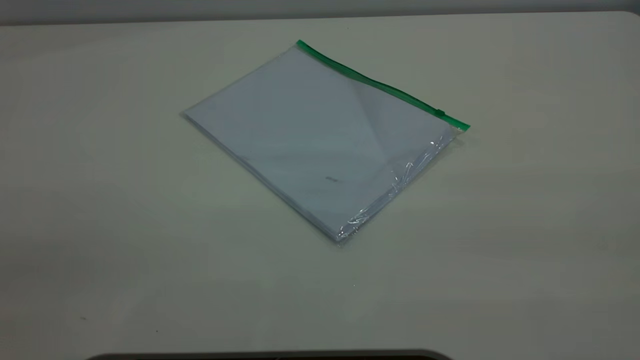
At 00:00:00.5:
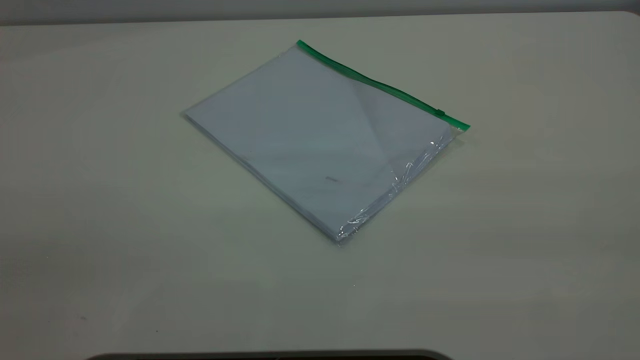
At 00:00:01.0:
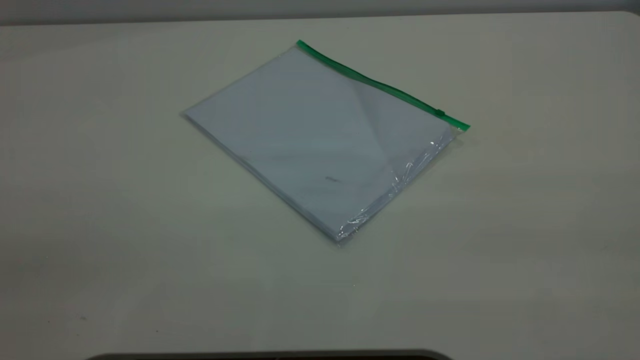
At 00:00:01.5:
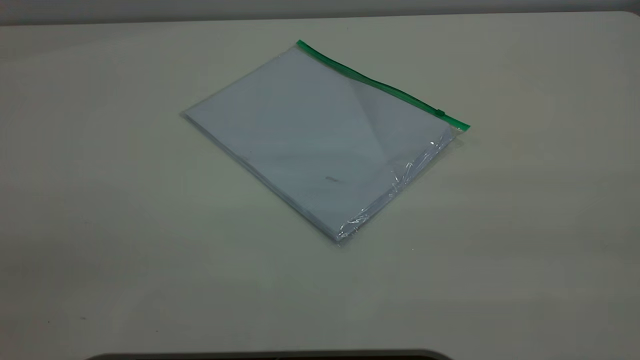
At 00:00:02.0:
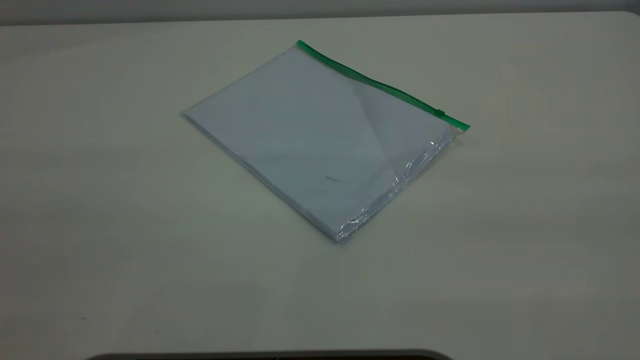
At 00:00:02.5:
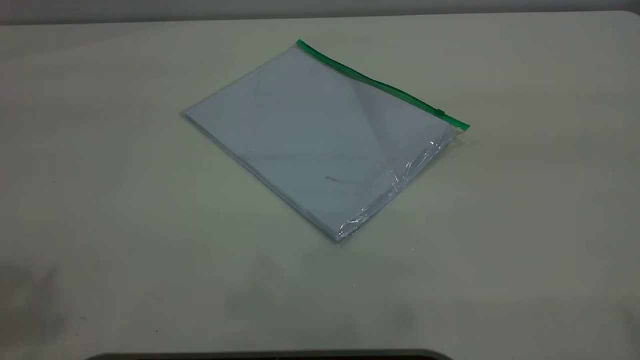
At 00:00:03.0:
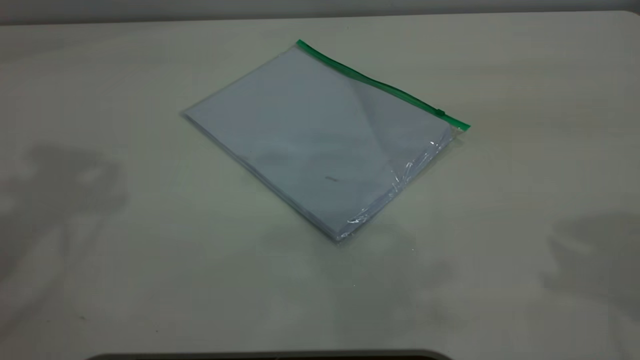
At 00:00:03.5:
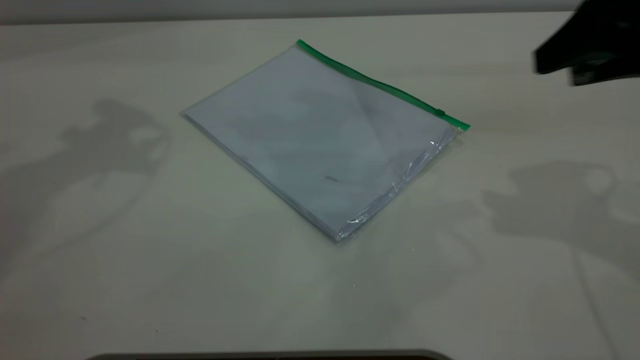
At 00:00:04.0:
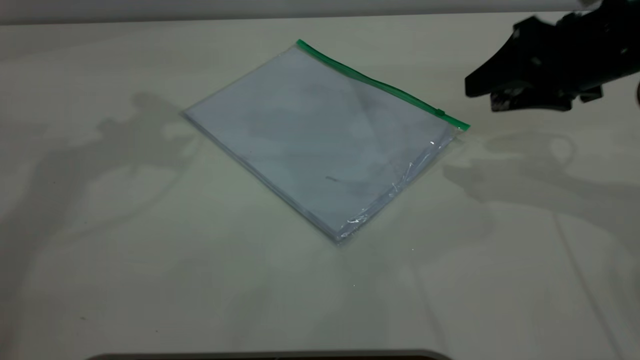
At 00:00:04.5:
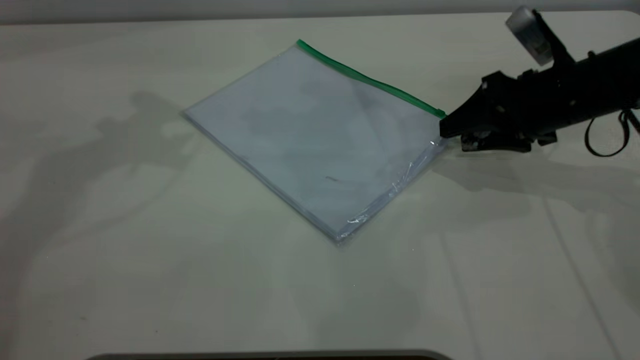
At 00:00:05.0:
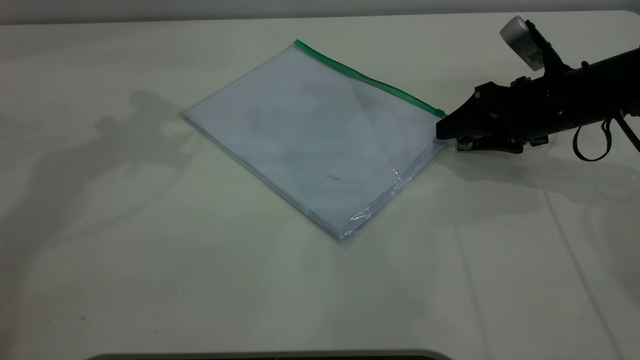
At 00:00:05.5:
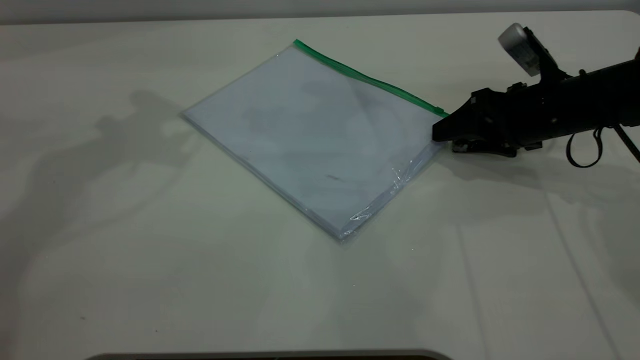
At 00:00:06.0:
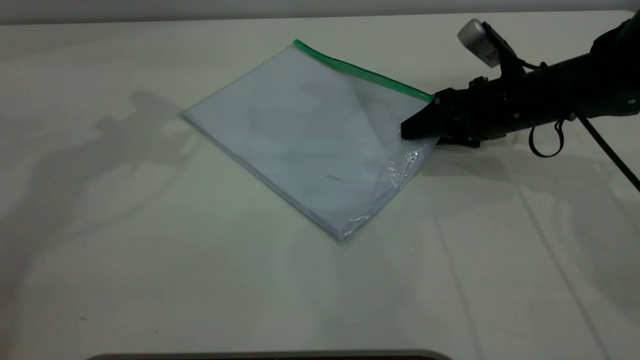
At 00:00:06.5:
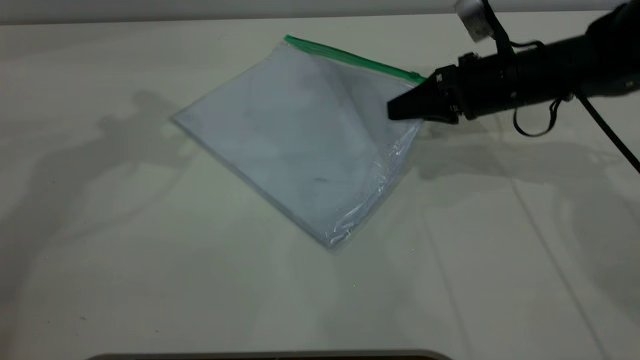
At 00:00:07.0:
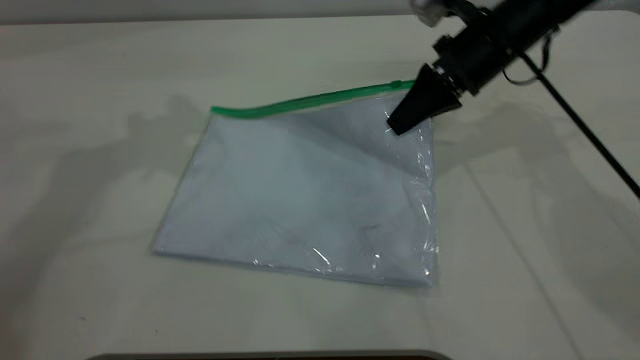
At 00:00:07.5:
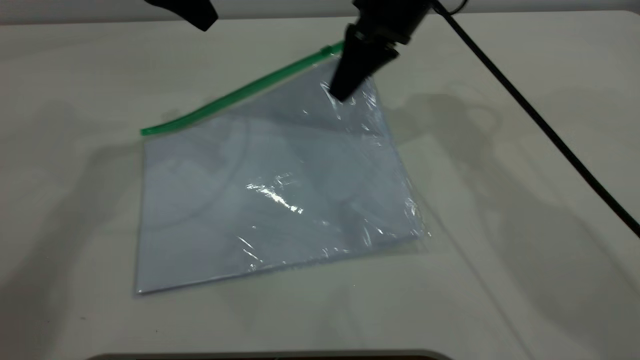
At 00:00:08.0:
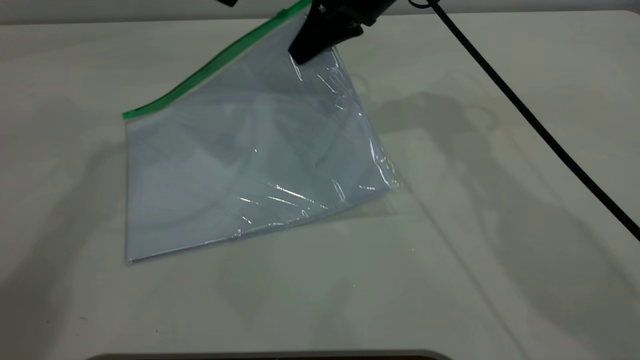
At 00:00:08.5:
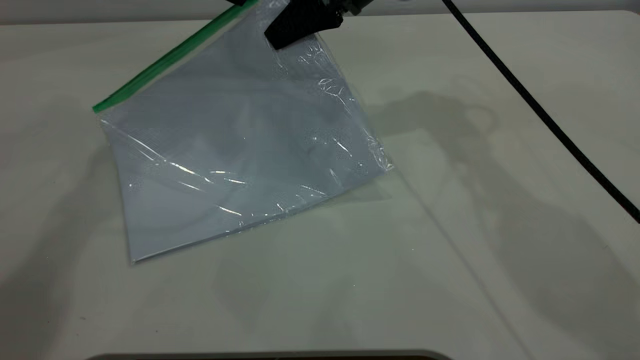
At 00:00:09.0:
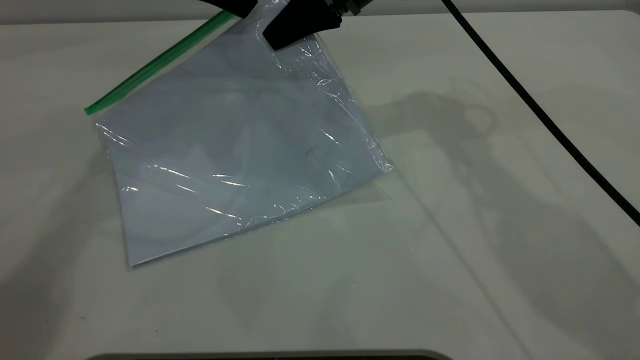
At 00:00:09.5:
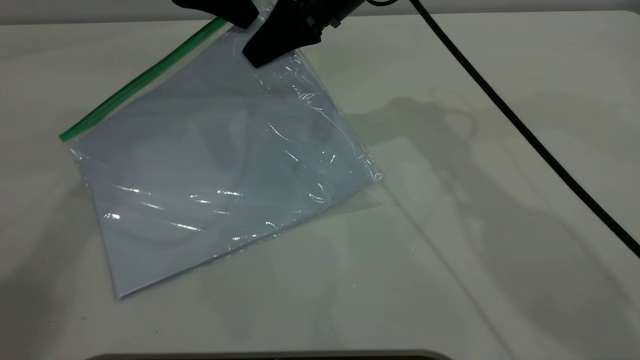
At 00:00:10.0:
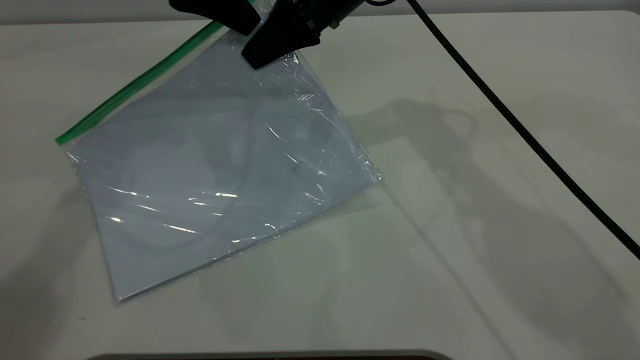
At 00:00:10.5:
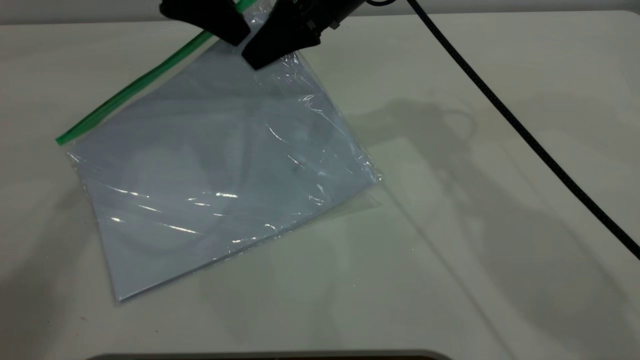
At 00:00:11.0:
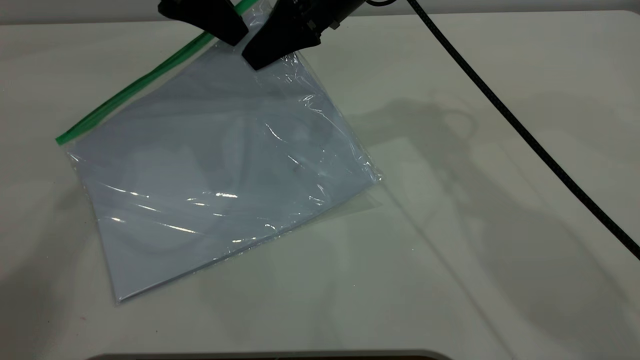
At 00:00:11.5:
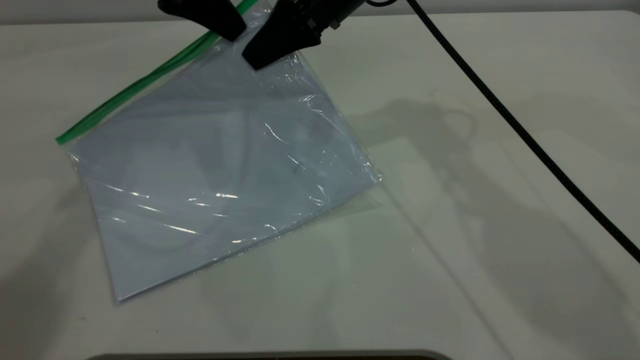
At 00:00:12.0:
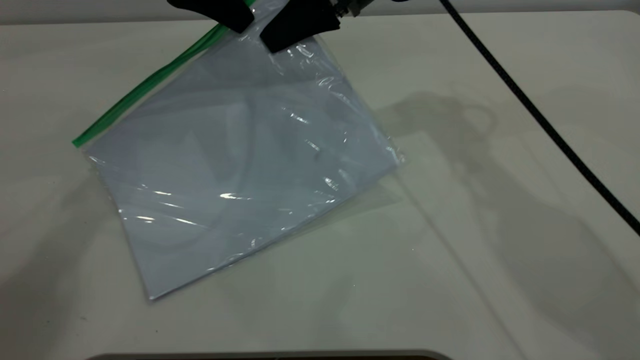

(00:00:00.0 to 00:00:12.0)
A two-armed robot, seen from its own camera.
Step, 00:00:00.0 - 00:00:06.0: Pick up the transparent plastic bag with the right gripper.
00:00:02.0 - 00:00:04.0: The right gripper goes about 40 cm forward and downward.
00:00:04.0 - 00:00:06.0: The right gripper goes about 10 cm downward and forward.
00:00:06.0 - 00:00:08.0: The left gripper shifts approximately 5 cm to the right; the right gripper goes roughly 20 cm to the left, upward and forward, and closes its fingers.
00:00:10.0 - 00:00:12.0: The left gripper closes.

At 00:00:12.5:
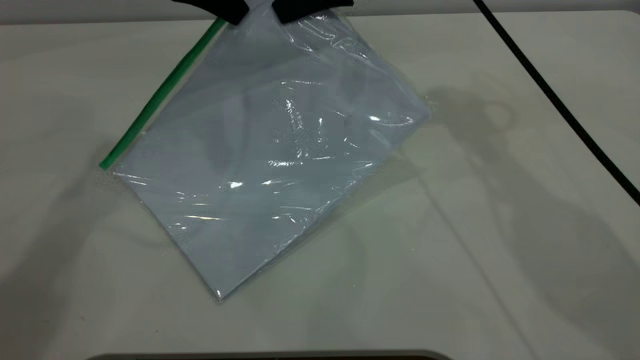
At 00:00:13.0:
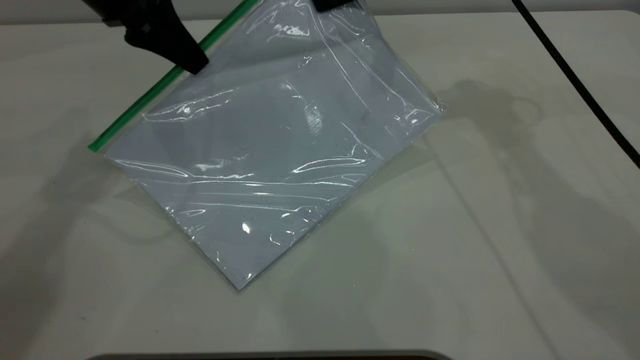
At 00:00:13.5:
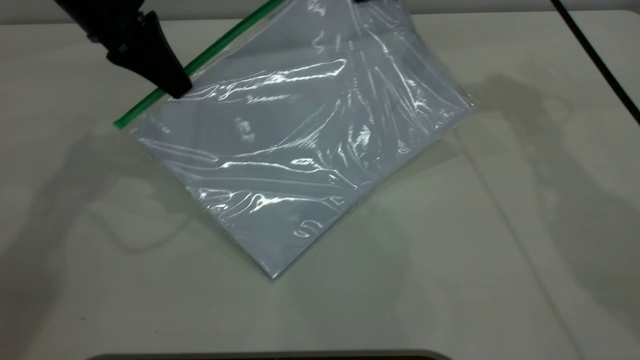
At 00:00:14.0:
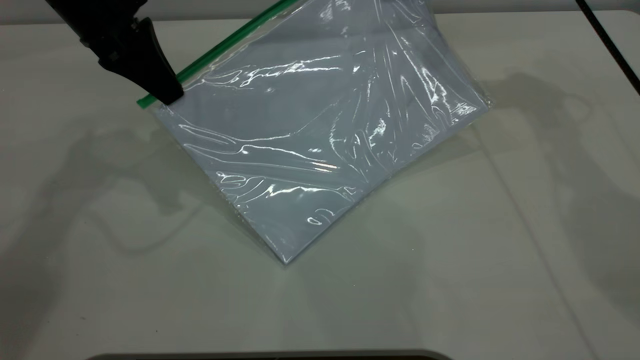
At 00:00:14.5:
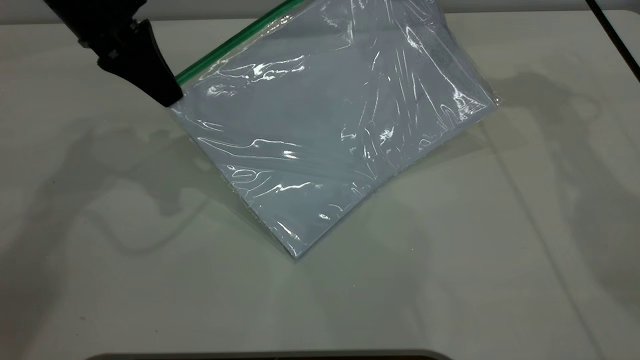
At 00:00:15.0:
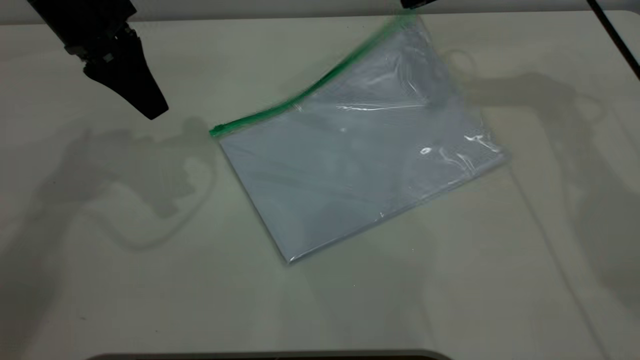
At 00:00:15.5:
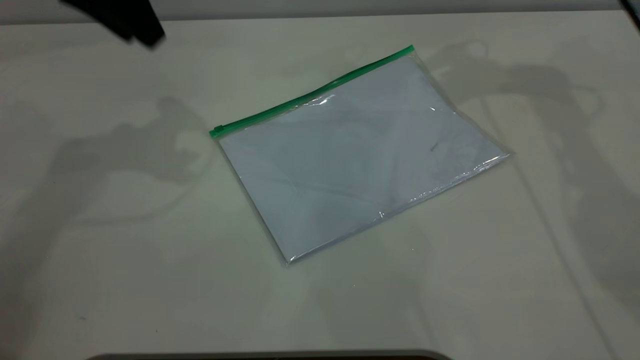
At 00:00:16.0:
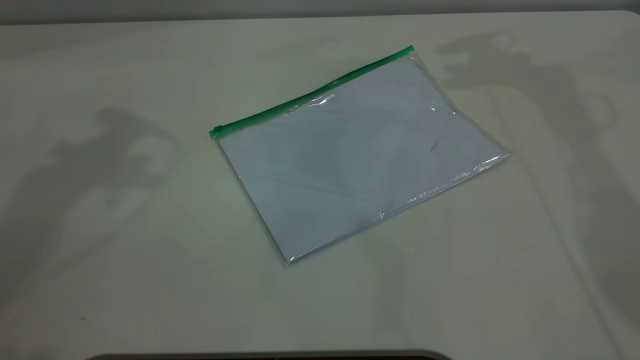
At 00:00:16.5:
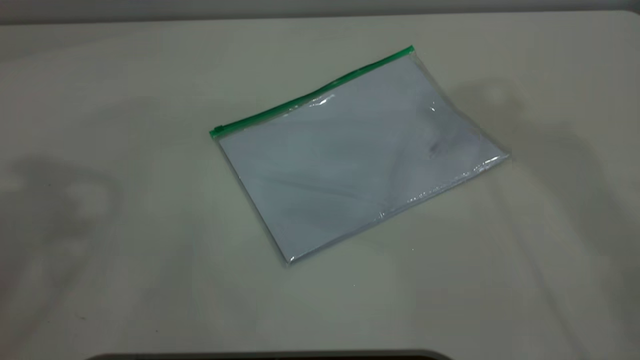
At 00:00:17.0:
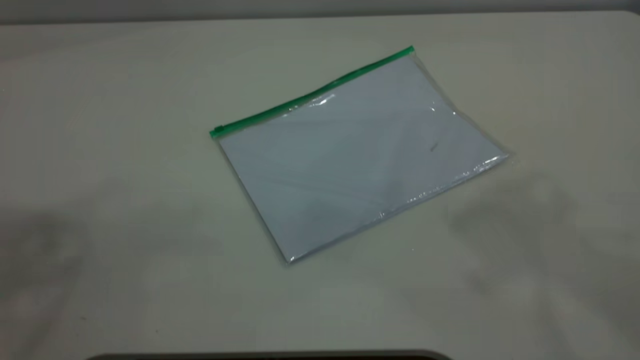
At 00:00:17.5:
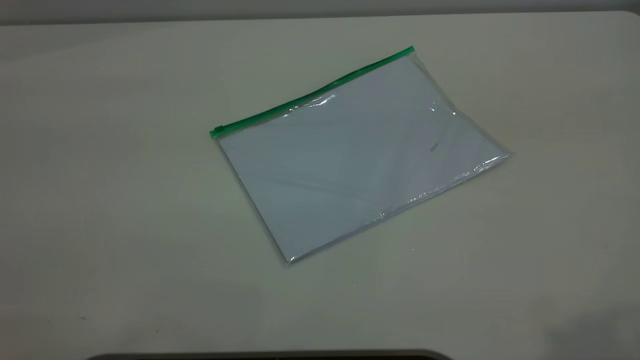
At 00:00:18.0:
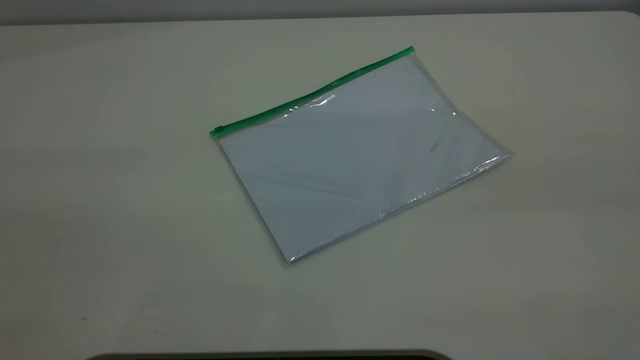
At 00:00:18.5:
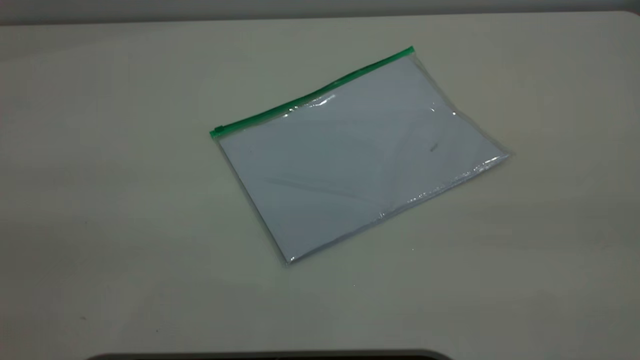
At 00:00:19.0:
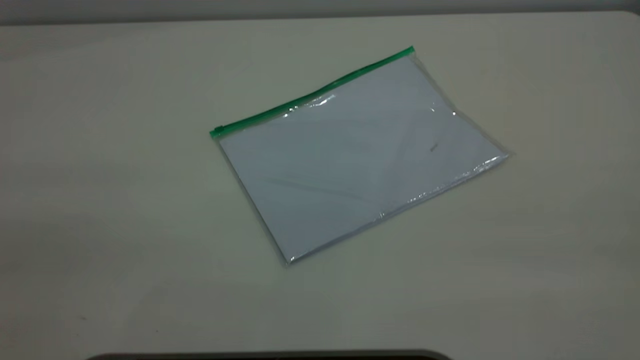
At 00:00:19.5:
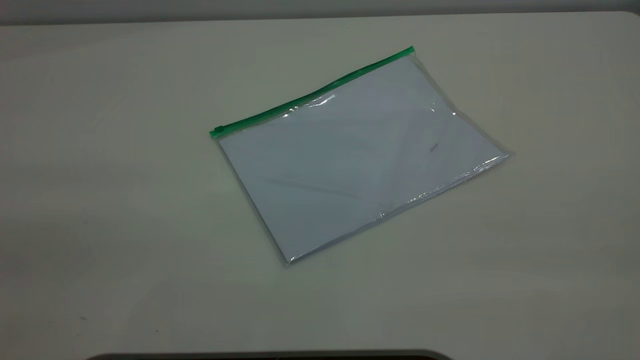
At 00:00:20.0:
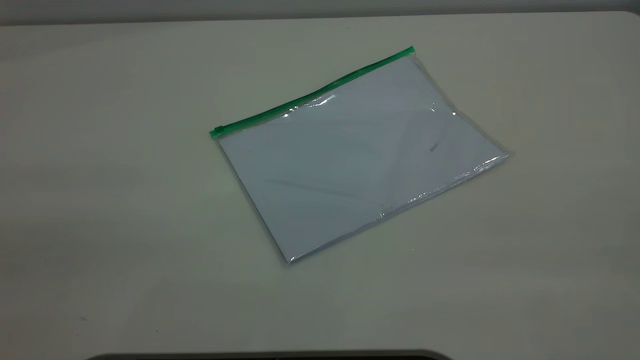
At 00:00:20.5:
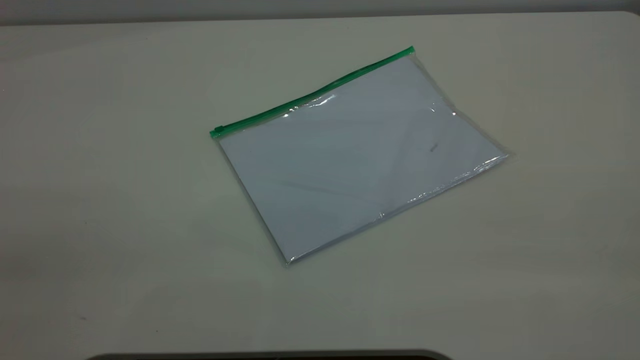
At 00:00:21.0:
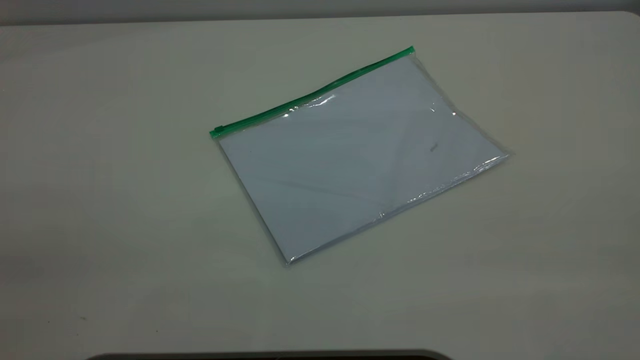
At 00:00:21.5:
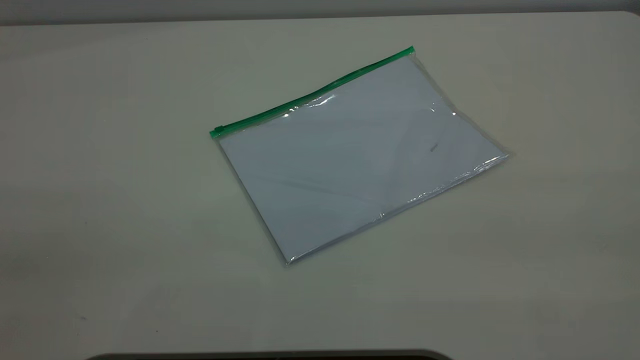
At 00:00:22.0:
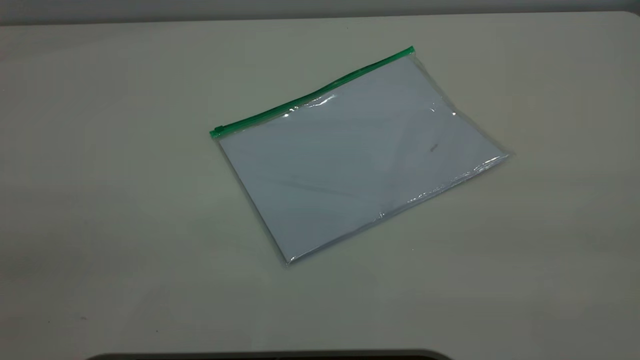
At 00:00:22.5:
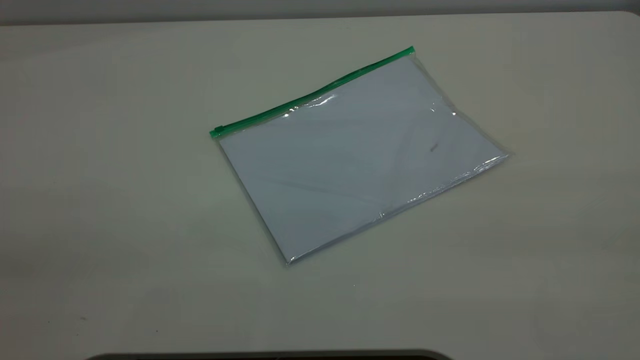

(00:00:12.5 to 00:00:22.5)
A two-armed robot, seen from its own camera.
Step, 00:00:12.5 - 00:00:14.5: Pulling up the zipper on the transparent plastic bag with the left gripper to close it.
00:00:12.5 - 00:00:14.5: The left gripper shifts by about 5 cm; the right gripper travels to the right by about 10 cm.
00:00:14.5 - 00:00:16.5: Both grippers move upward and backward, roughly 35 cm. The right gripper opens up. The left gripper opens up.
